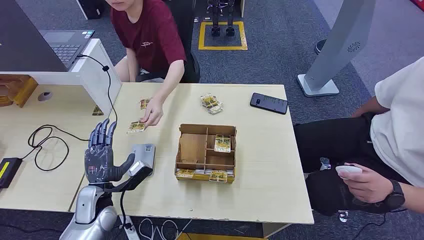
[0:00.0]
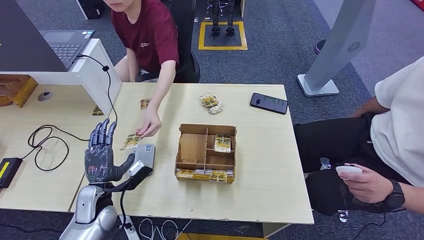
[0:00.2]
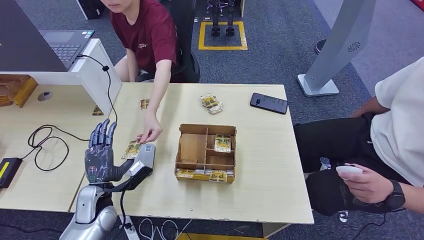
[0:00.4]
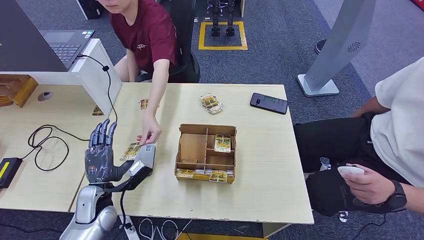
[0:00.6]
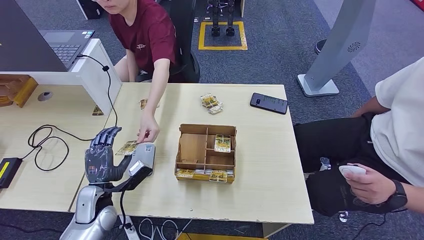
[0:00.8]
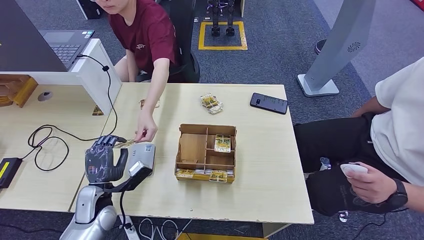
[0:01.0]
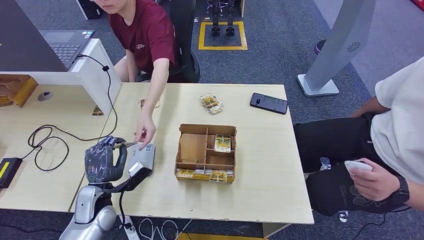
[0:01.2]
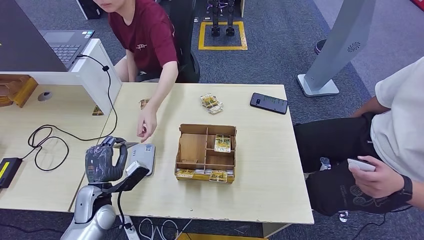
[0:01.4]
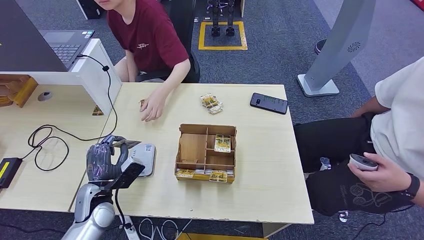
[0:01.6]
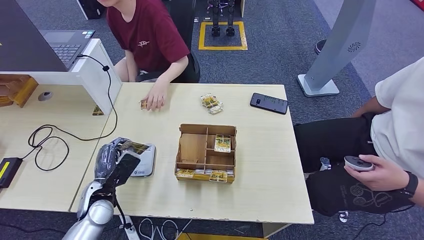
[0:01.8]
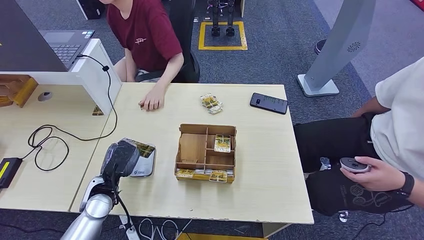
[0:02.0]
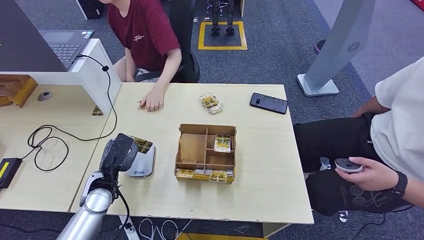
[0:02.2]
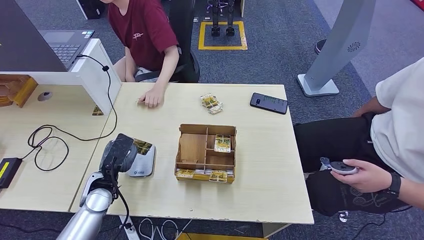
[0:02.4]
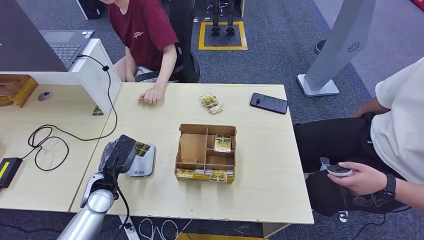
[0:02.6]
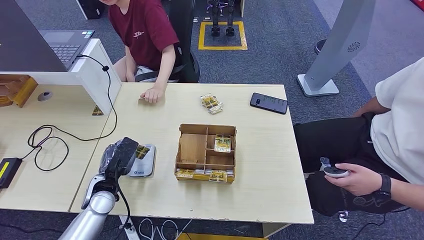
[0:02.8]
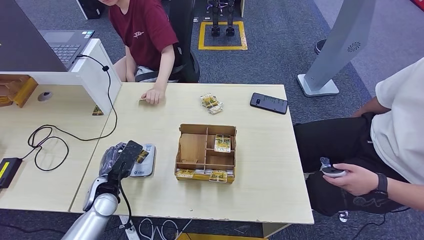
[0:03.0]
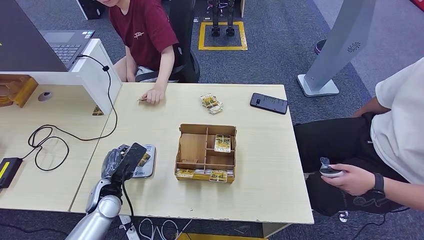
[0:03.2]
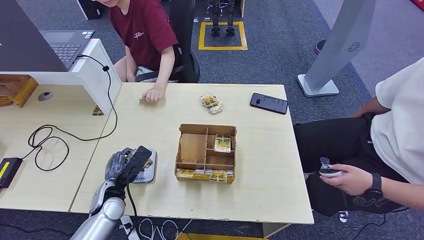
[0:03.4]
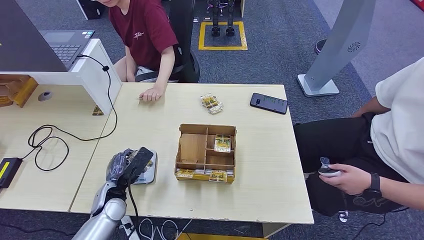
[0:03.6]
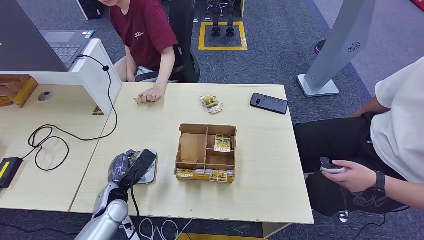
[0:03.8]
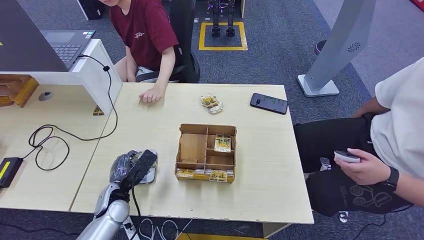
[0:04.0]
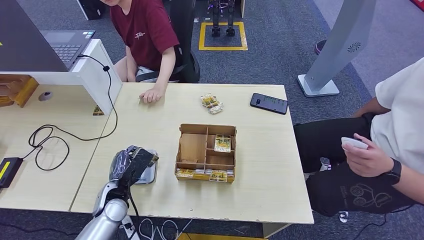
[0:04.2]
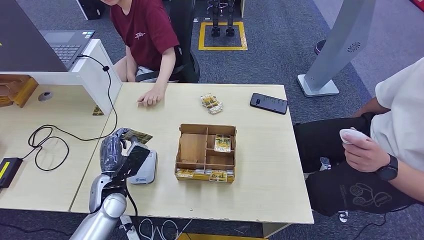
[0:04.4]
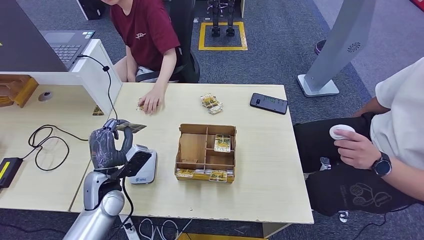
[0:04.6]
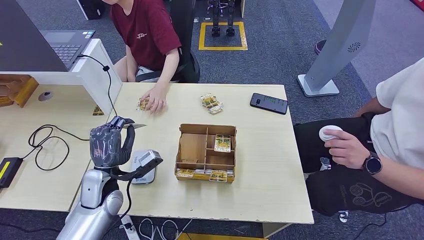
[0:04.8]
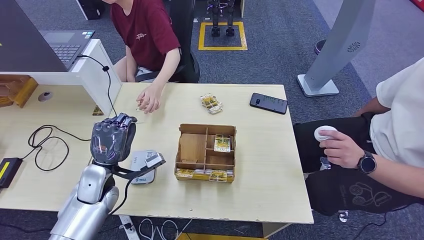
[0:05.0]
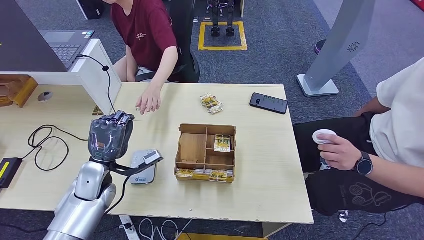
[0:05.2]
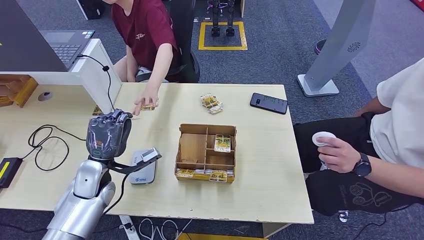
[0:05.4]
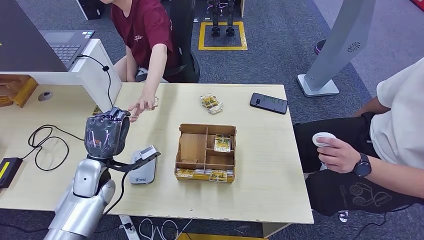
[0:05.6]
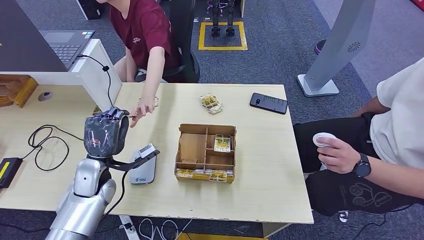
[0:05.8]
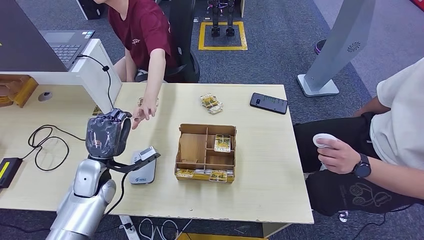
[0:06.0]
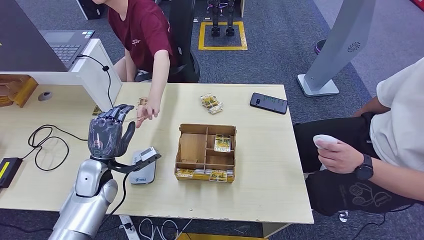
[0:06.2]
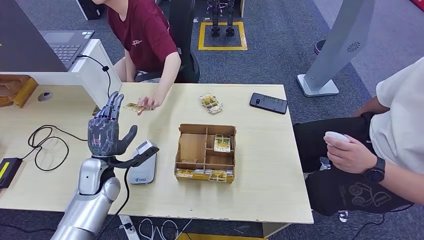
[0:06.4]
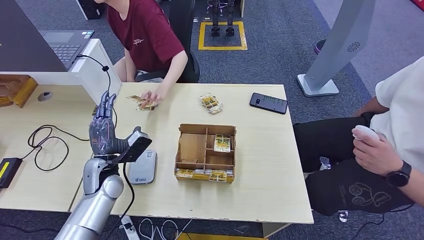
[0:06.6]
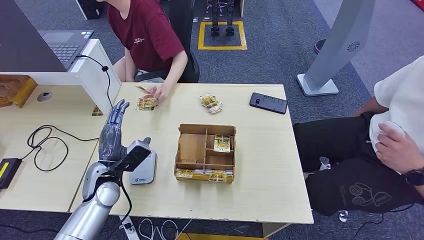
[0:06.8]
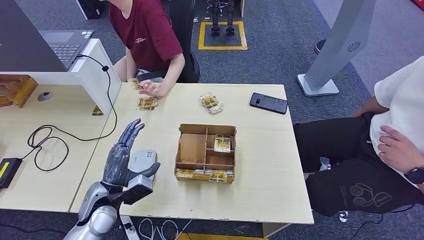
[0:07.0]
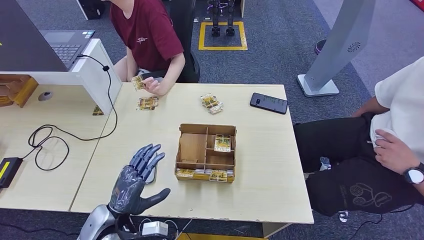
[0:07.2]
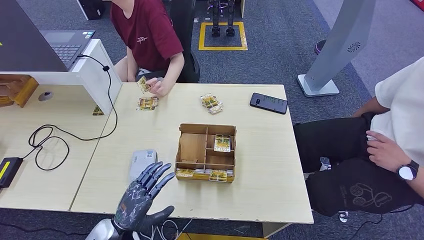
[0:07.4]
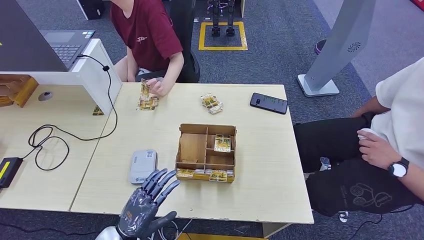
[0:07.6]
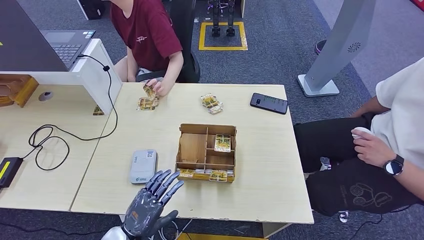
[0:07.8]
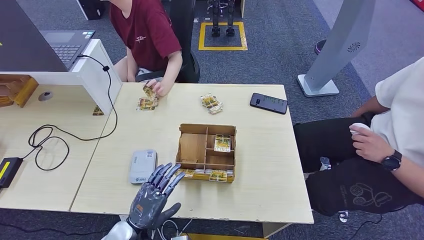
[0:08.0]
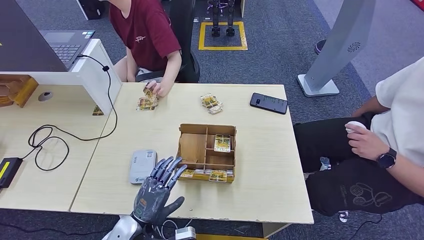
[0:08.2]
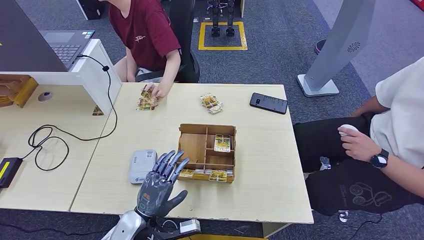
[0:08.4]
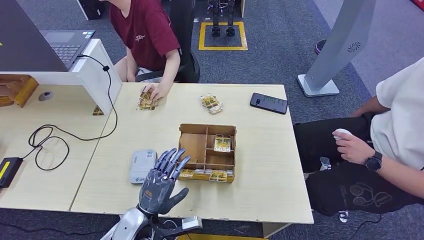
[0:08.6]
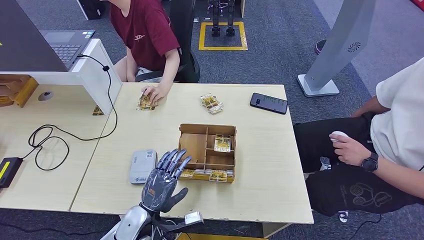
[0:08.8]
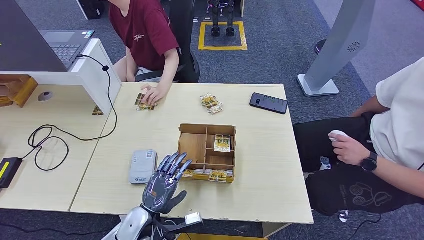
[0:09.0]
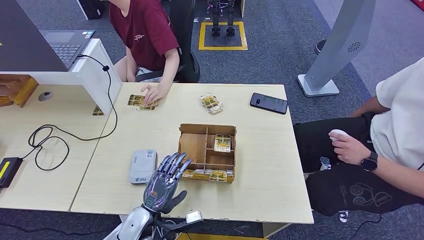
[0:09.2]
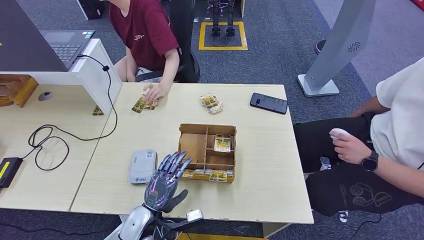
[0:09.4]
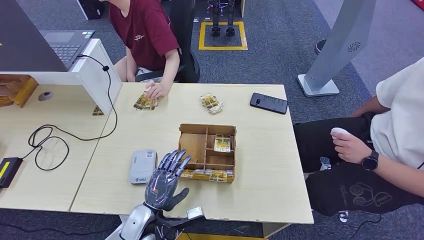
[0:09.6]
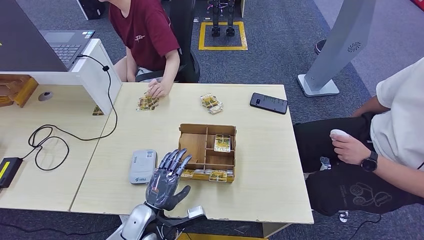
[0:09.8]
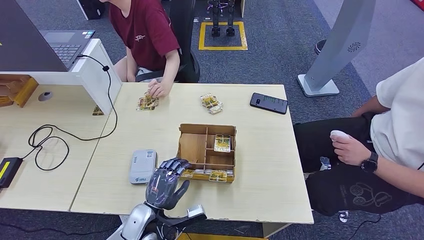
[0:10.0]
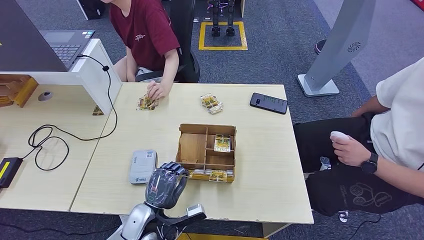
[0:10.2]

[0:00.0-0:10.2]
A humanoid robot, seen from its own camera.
Step, 0:00.0 to 0:01.2: Take the ID card from the person's hand.
Step, 0:01.4 to 0:04.0: Place the ID card on the card reader.
Step, 0:04.2 to 0:06.8: Hand the ID card to the person.
0:04.4 to 0:05.8: The left hand ends up approximately 5 cm from where it was.
0:05.8 to 0:07.2: The left hand moves backward, about 10 cm.
0:07.2 to 0:08.8: The left hand heads to the right, covering about 5 cm.
0:08.8 to 0:10.2: The hands move only a little.

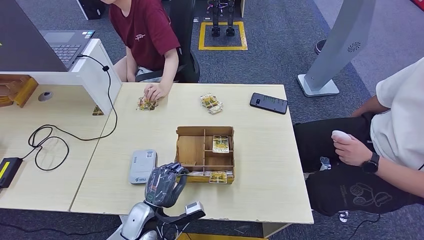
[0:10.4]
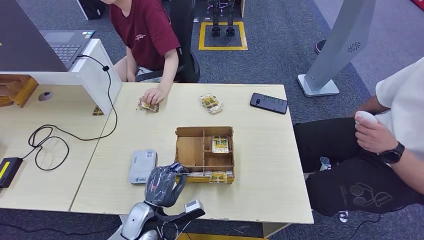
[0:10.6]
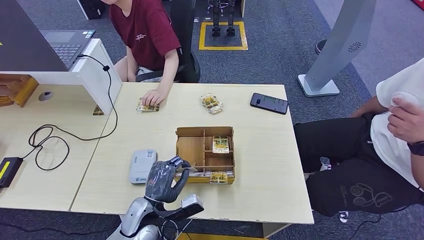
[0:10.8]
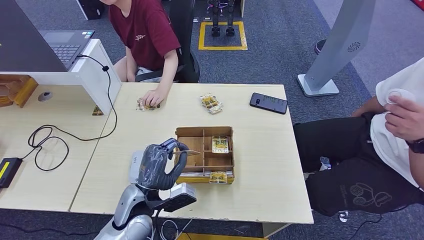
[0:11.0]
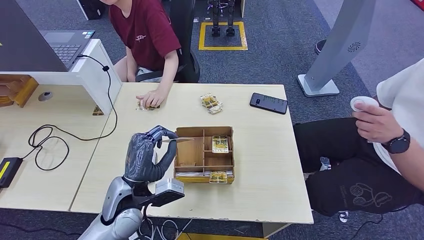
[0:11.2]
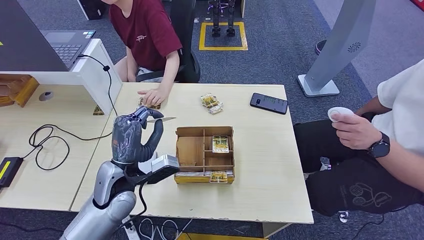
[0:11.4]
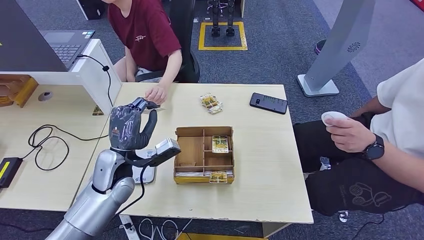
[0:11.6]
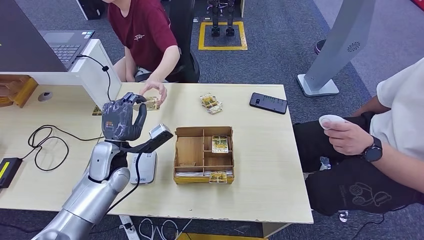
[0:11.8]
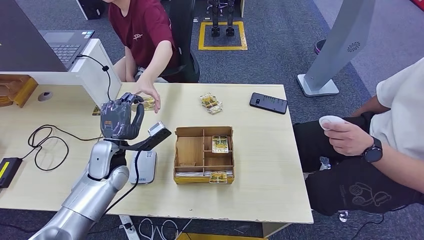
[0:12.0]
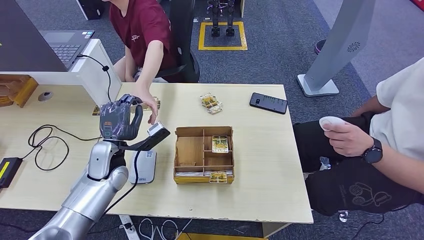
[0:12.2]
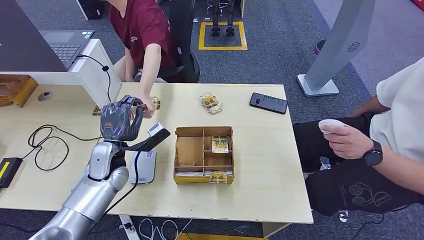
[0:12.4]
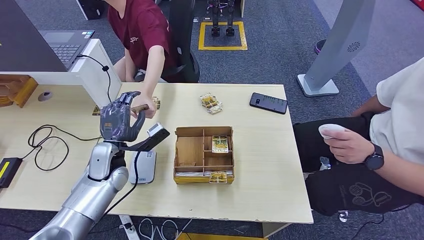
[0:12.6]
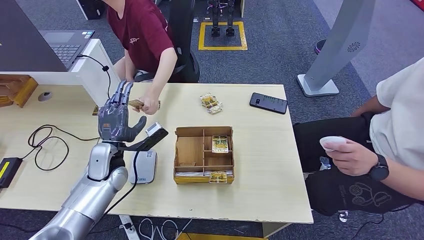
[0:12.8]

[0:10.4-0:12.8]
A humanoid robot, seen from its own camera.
Step, 0:11.2 to 0:12.8: Hand the room key to the person.
0:10.4 to 0:11.6: The left hand travels upward and forward by roughly 15 cm.
0:11.6 to 0:12.8: The left hand moves some 5 cm.
